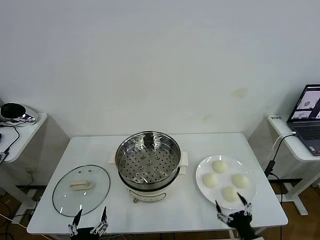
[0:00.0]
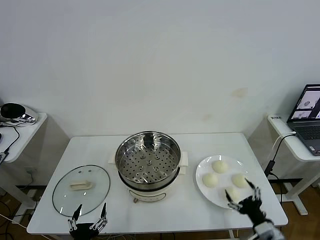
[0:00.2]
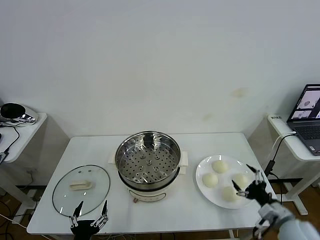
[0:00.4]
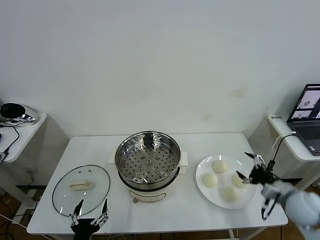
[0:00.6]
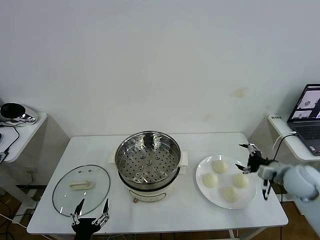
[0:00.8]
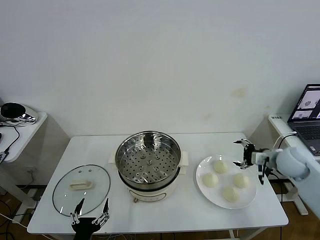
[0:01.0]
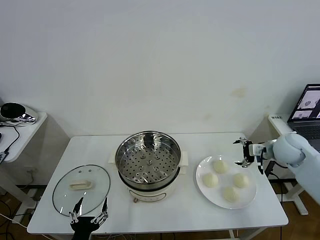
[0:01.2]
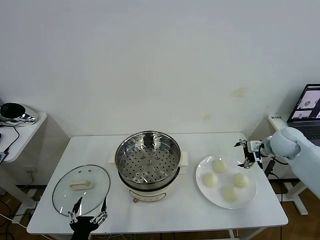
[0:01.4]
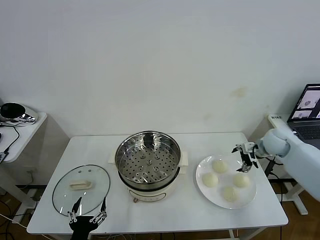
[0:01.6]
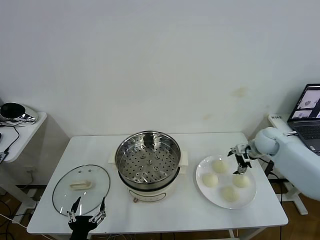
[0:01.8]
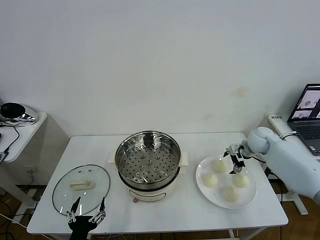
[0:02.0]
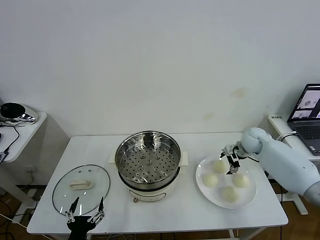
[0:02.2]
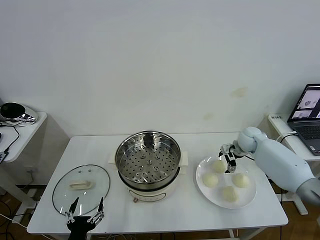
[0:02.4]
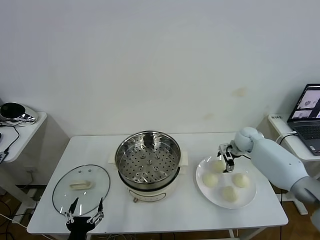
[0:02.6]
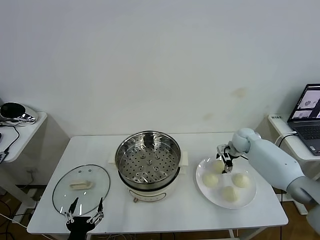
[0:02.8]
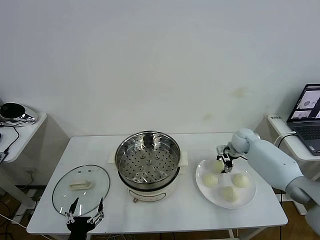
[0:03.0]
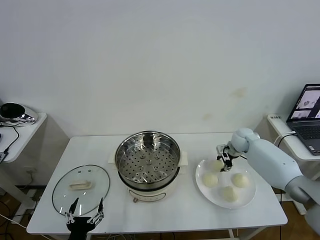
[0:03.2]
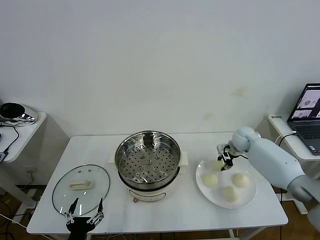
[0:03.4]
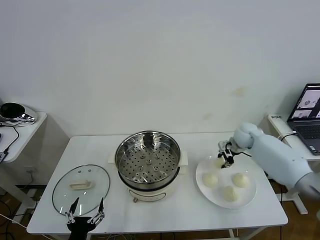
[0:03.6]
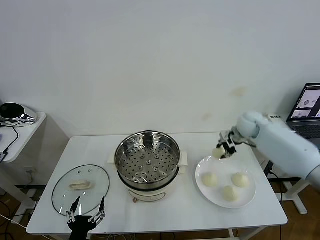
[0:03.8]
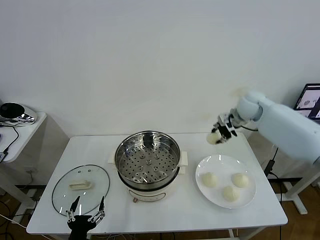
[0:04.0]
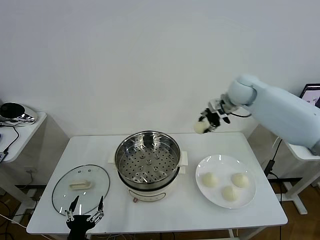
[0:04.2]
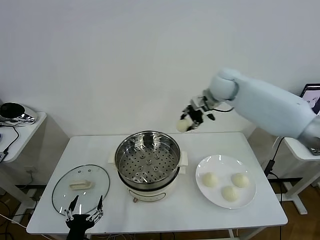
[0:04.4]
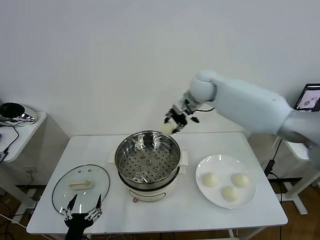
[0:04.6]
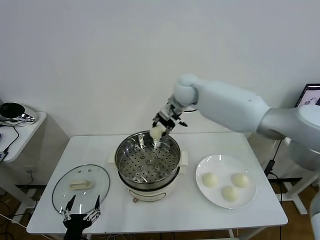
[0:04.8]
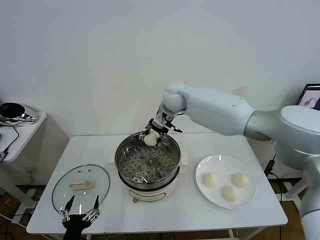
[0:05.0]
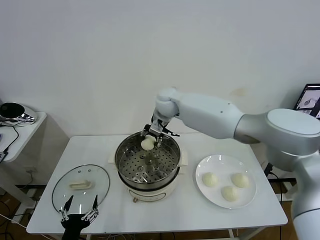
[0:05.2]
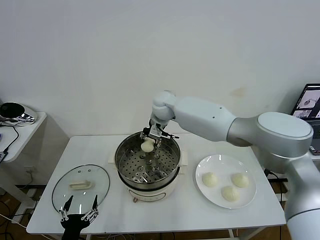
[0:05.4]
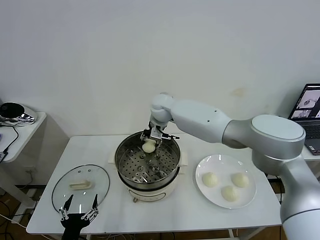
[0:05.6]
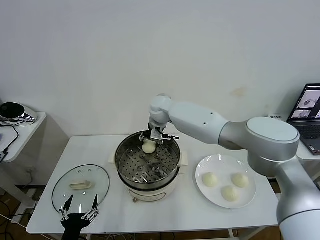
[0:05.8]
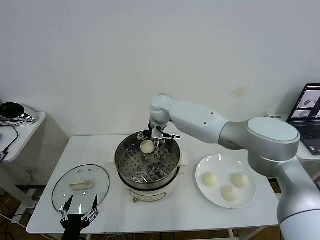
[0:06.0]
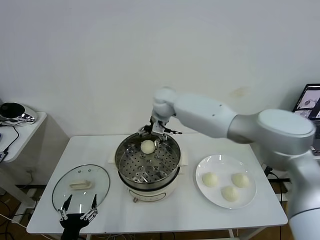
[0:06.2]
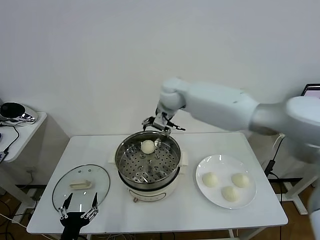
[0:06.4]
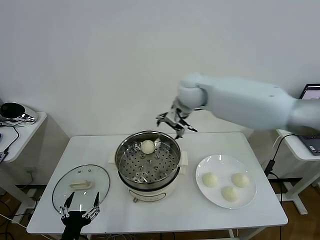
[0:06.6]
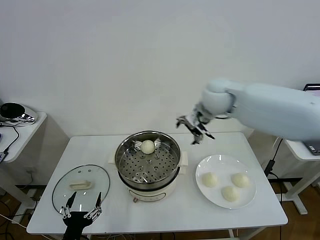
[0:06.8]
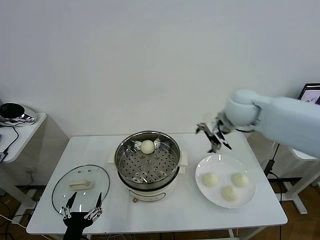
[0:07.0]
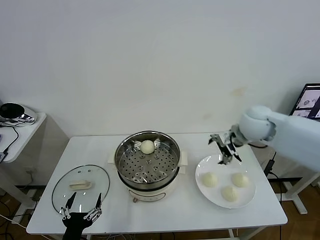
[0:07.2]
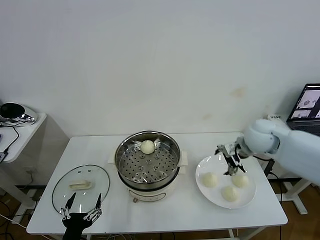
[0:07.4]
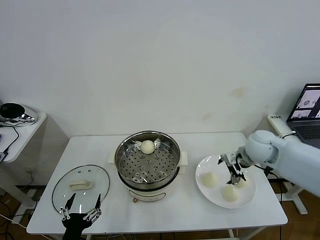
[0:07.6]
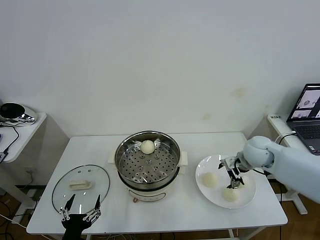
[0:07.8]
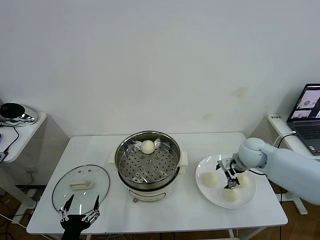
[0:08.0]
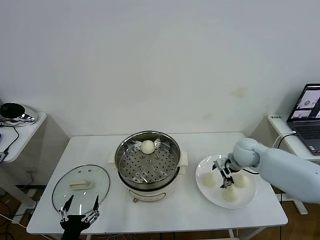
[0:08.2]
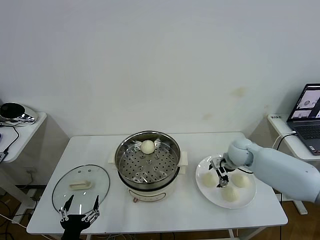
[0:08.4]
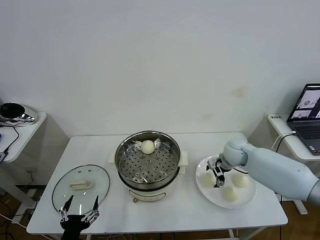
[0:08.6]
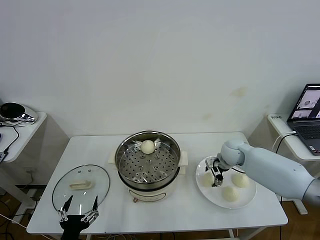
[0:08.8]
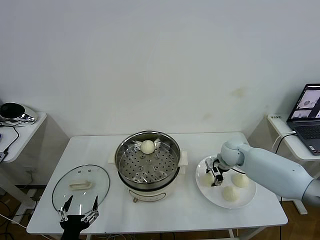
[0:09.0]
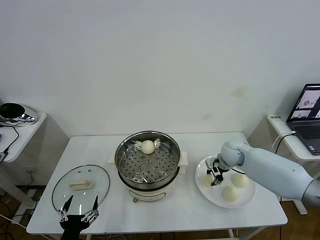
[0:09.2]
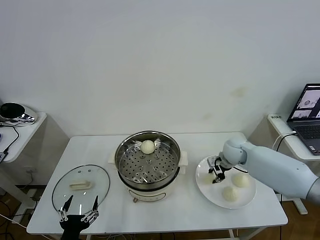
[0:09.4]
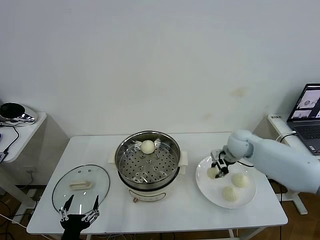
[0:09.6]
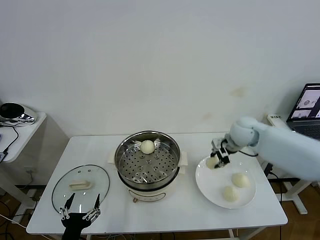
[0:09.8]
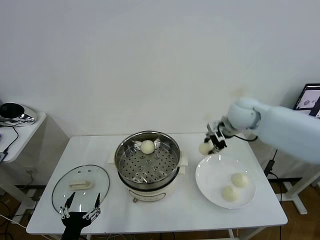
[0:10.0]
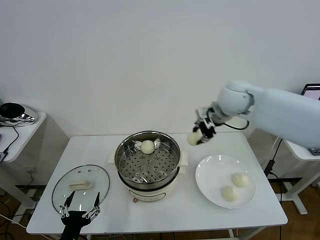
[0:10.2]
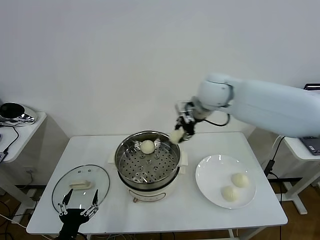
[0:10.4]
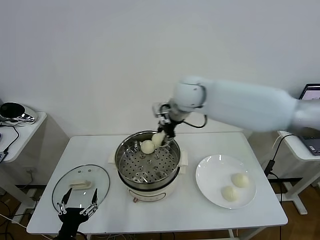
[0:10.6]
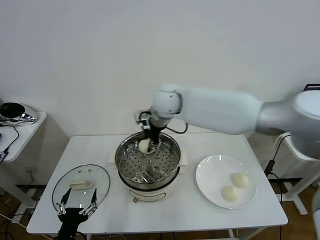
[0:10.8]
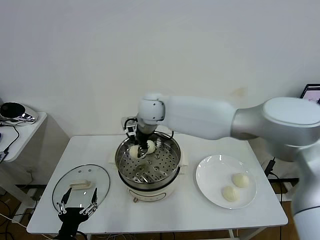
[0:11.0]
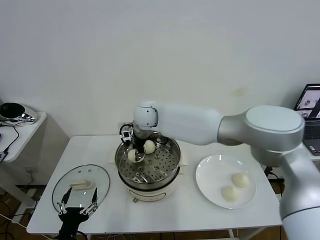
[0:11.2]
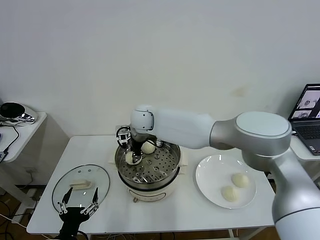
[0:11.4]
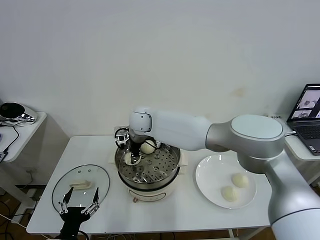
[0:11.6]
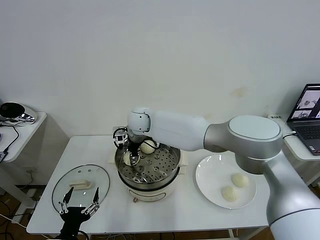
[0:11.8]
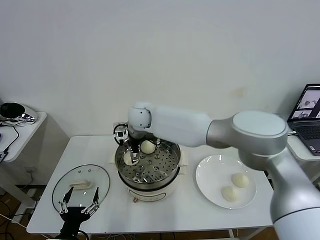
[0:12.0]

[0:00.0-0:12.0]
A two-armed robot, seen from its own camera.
Task of the whole recording: take steamed baozi put them in steamer then cover it.
Step, 0.0 to 3.2 s: Grasp the baozi in the plate with right gripper.
Step, 3.4 to 5.8 s: Place the baozi on the steamer with right gripper.
Step, 6.0 to 9.0 s: Grasp the baozi in the plate with right gripper.
1.6 to 3.0 s: The right gripper heads downward, forward and to the left, covering roughly 10 cm, and closes its fingers.
3.0 to 4.4 s: The right gripper shifts roughly 30 cm upward and to the left, and closes its fingers.
4.4 to 6.0 s: The right gripper shifts roughly 15 cm to the left and downward, and opens up.
6.0 to 7.6 s: The right gripper goes some 35 cm to the right and backward.
7.6 to 9.0 s: The right gripper is displaced downward and forward by some 10 cm, and closes up.
9.0 to 10.4 s: The right gripper is displaced upward and to the left by roughly 30 cm.
10.4 to 12.0 s: The right gripper goes some 20 cm to the left and downward, and opens.

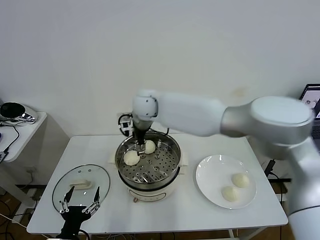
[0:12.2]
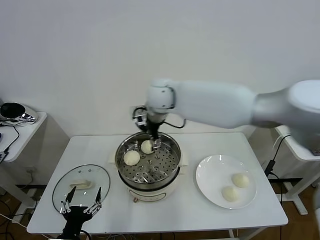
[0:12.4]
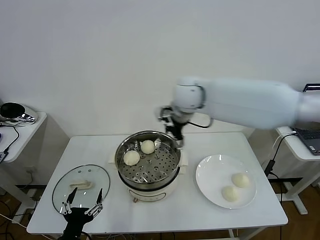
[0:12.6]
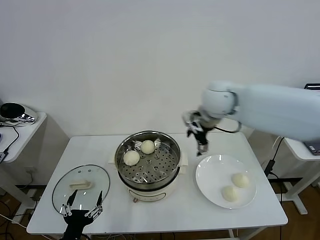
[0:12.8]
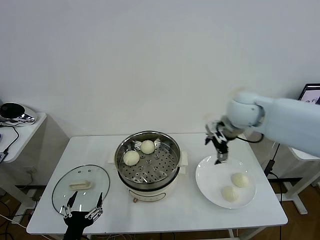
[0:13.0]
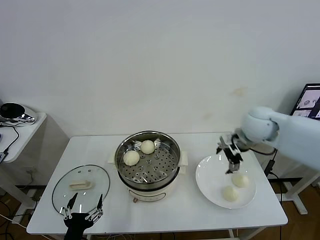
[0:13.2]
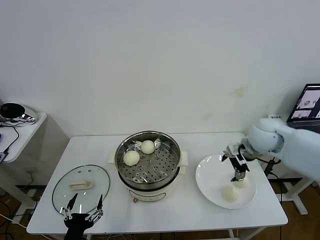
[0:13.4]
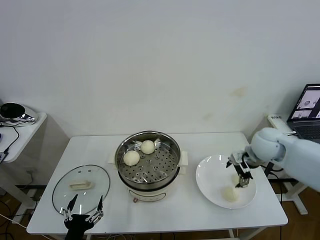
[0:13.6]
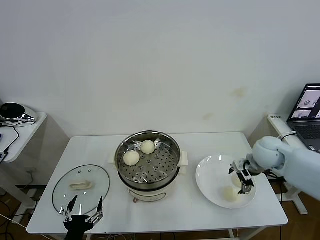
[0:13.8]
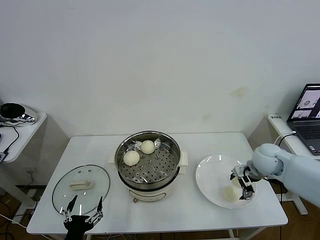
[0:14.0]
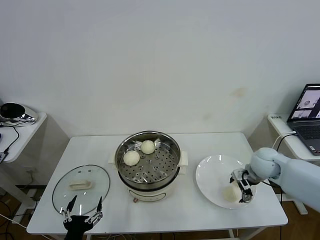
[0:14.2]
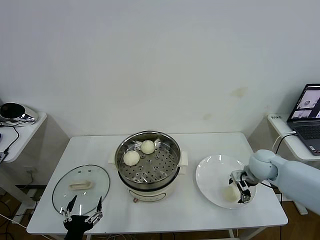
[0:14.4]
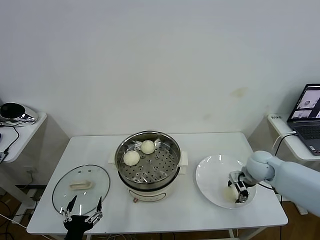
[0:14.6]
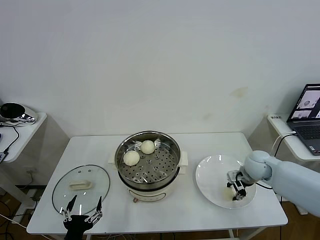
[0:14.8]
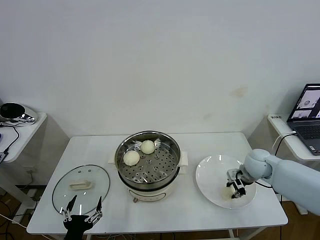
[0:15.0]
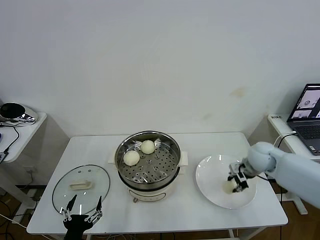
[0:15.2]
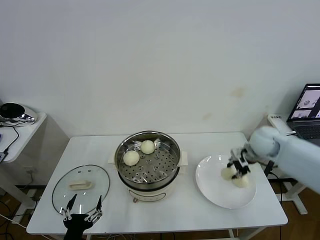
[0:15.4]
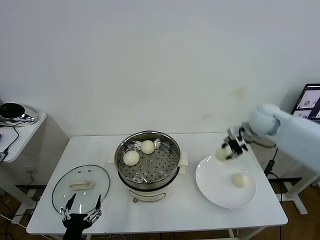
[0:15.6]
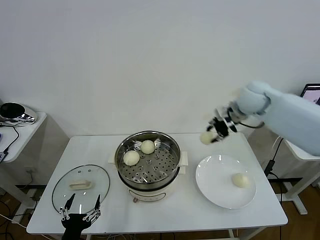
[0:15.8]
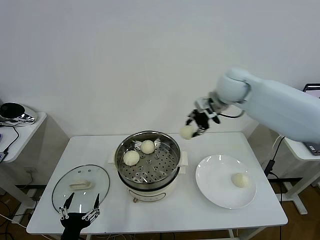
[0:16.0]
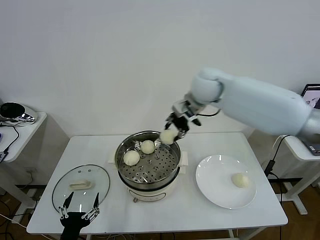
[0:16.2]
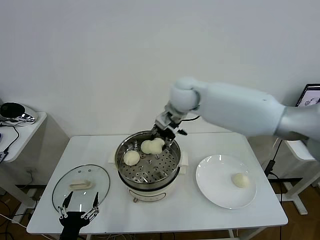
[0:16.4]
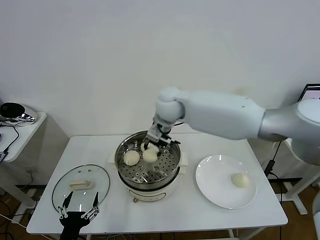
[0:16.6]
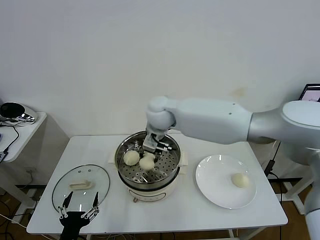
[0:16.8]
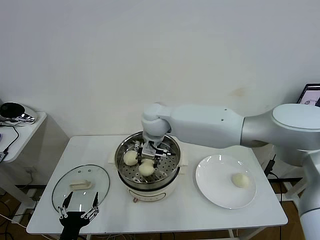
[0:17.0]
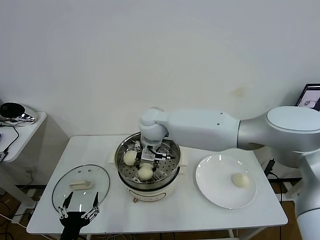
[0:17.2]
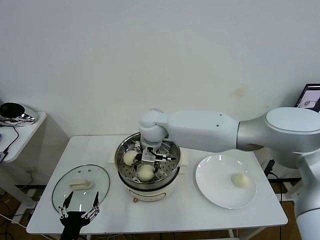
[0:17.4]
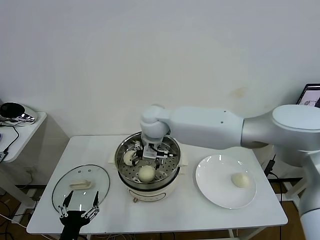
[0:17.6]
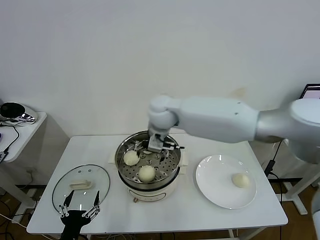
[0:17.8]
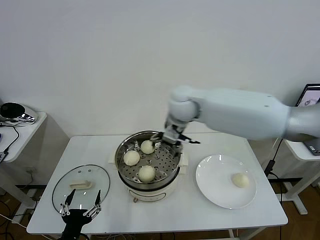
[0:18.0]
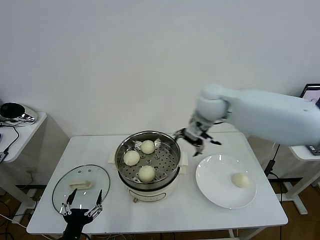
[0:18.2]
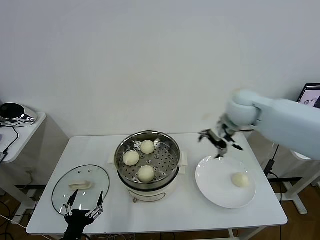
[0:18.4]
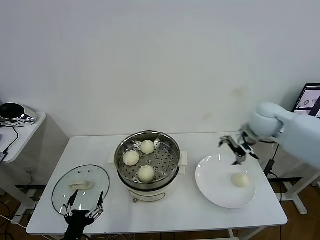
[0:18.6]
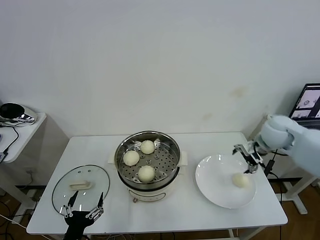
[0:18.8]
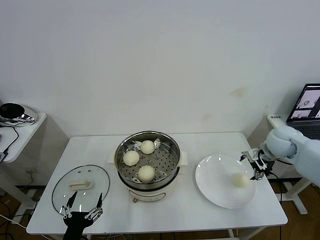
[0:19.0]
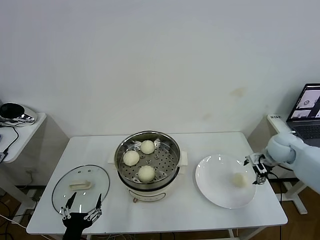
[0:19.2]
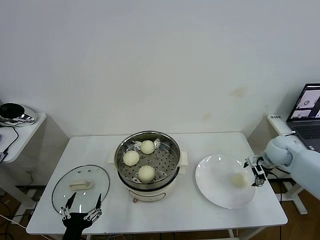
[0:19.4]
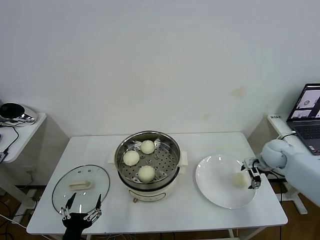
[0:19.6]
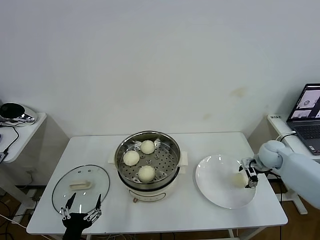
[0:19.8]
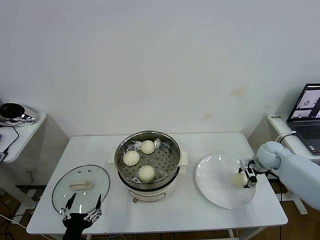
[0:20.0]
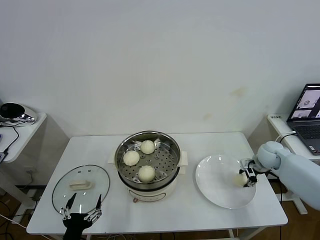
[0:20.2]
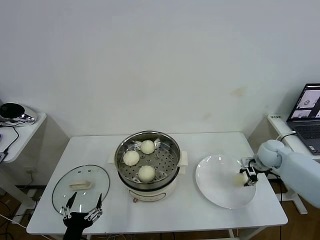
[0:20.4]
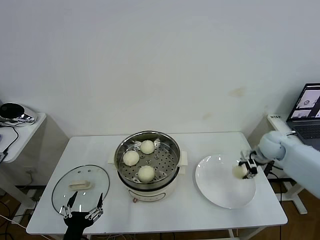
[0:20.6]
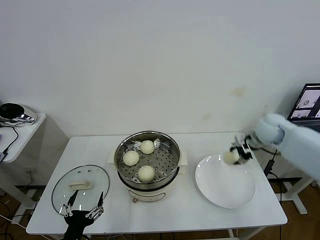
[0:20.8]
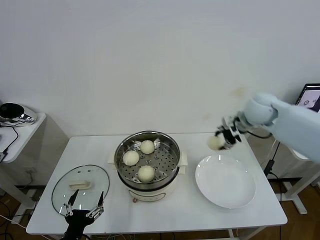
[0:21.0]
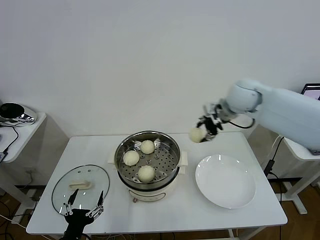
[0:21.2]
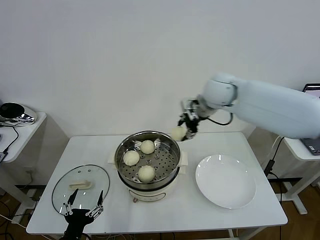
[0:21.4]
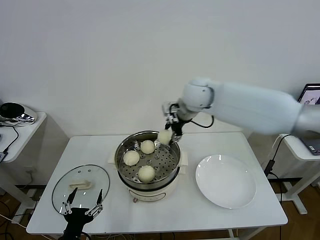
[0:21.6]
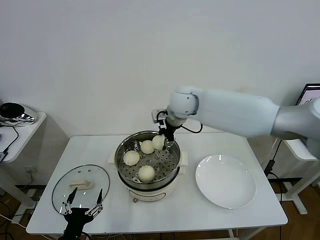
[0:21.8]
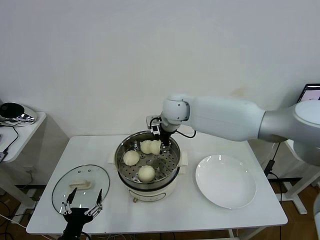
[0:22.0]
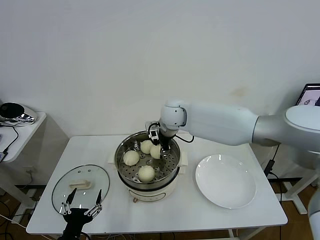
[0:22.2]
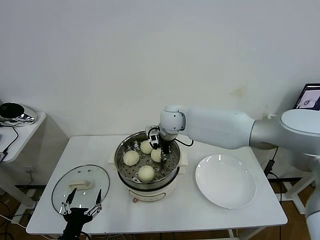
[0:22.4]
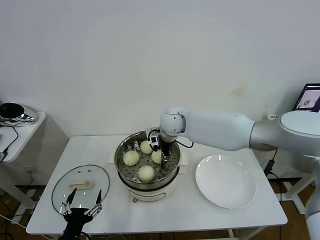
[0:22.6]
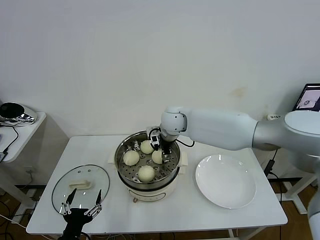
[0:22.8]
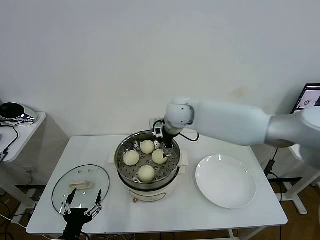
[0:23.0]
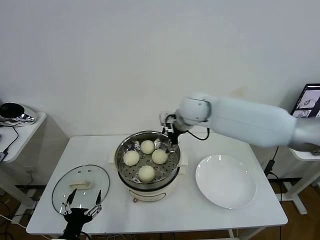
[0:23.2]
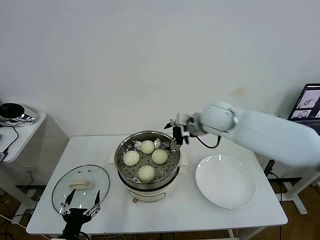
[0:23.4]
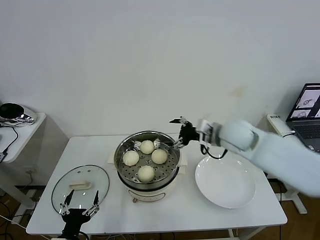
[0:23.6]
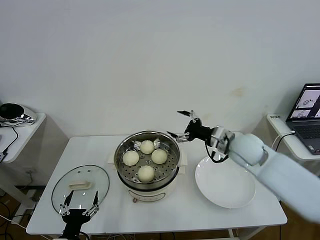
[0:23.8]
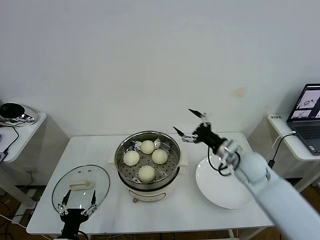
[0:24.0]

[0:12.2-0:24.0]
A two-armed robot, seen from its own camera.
Task of the whole recording: take steamed baozi put them in steamer then cover it.
Step, 12.2 to 14.8 s: Grasp the baozi in the plate with right gripper.
Step, 15.0 to 17.4 s: Place the baozi on the steamer with right gripper.
Step, 17.6 to 20.0 s: Grasp the baozi in the plate with right gripper.
Step, 20.2 to 23.0 s: Place the baozi on the steamer with right gripper.
12.2 to 13.6 s: The right gripper heads to the right, covering roughly 35 cm.
13.6 to 15.2 s: The right gripper is displaced downward by approximately 5 cm, and closes up.
15.2 to 16.6 s: The right gripper heads to the left and upward, covering roughly 35 cm.
16.6 to 18.2 s: The right gripper heads to the right, covering roughly 15 cm, and opens up.
18.2 to 19.6 s: The right gripper goes some 35 cm to the right and downward.
19.6 to 21.0 s: The right gripper shifts roughly 20 cm upward and to the left, and closes up.
21.0 to 22.6 s: The right gripper goes about 25 cm to the left.
22.6 to 24.0 s: The right gripper moves to the right and backward, roughly 25 cm, and opens its fingers.
